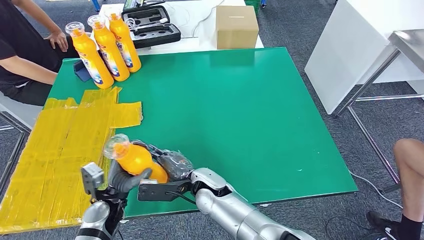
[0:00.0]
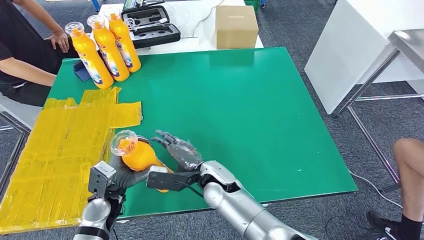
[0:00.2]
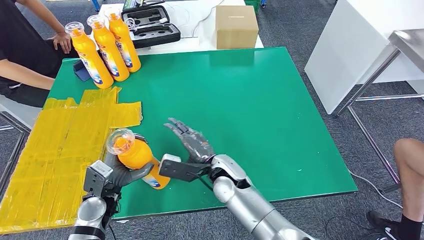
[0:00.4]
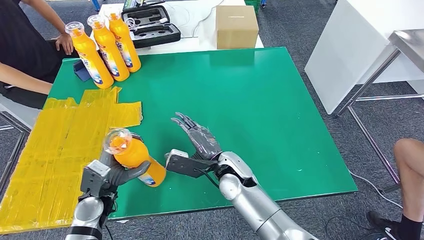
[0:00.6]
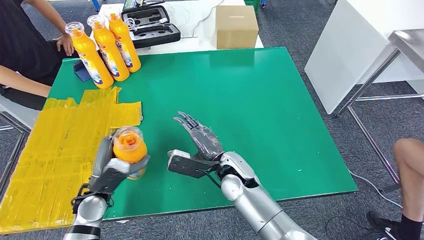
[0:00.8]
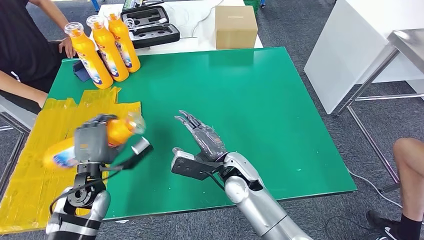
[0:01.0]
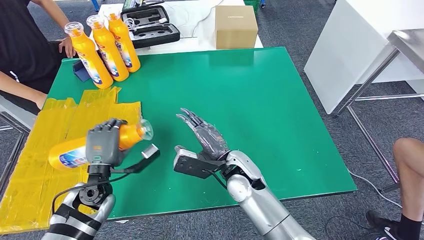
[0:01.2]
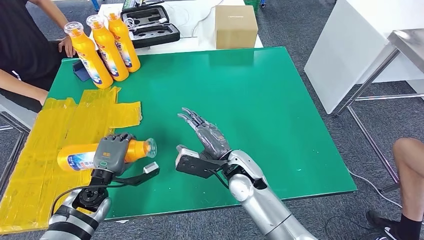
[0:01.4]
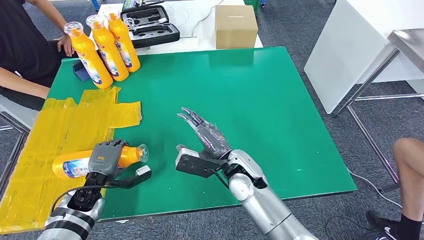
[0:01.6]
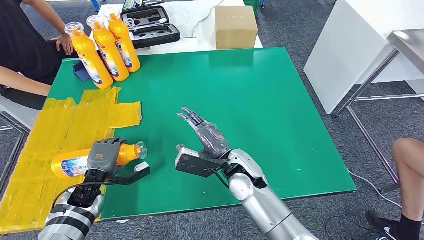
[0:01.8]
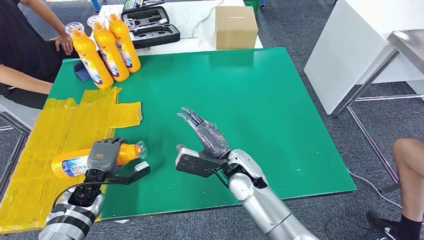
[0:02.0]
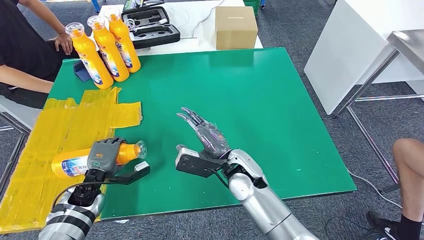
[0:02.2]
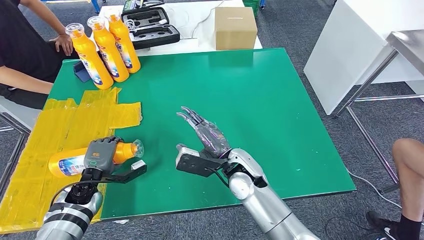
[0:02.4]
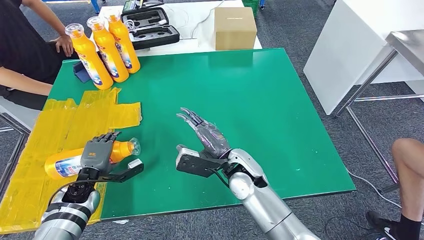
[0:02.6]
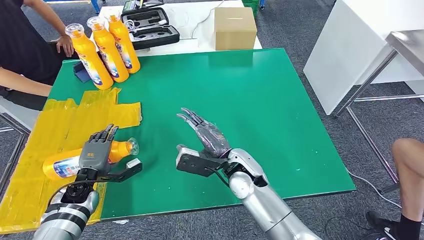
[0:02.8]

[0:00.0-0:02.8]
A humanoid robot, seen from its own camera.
Step, 0:00.0 to 0:02.6: Flip the bottle to face forward.
0:01.4 to 0:02.8: The left hand moves to the left, some 5 cm.
